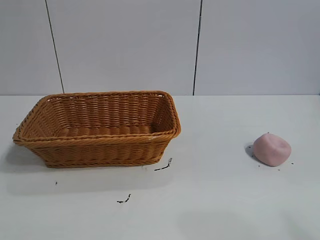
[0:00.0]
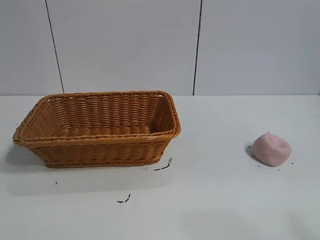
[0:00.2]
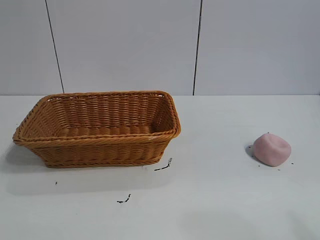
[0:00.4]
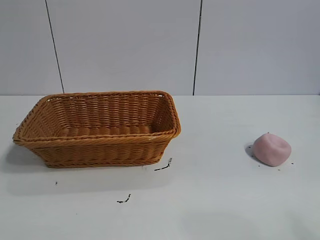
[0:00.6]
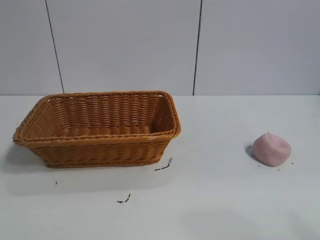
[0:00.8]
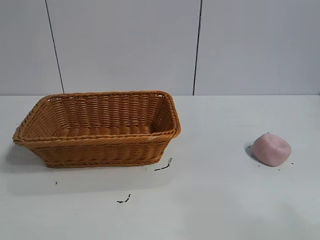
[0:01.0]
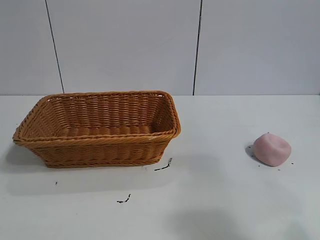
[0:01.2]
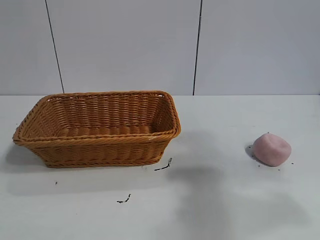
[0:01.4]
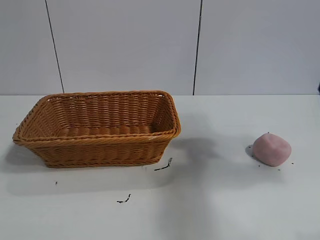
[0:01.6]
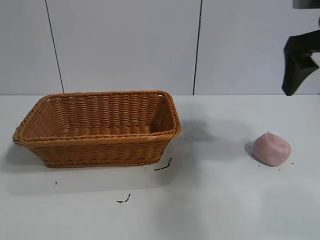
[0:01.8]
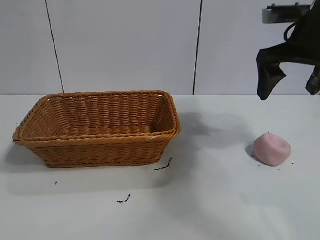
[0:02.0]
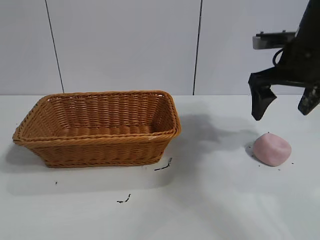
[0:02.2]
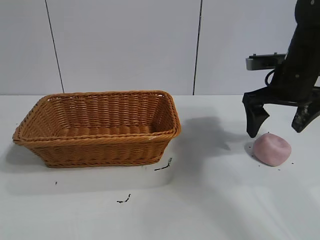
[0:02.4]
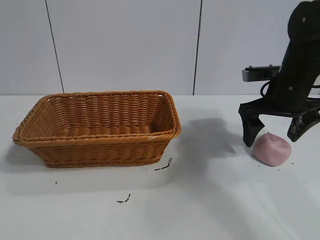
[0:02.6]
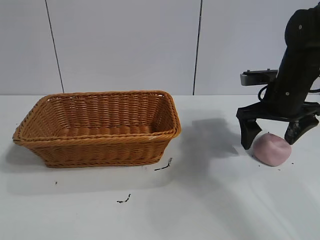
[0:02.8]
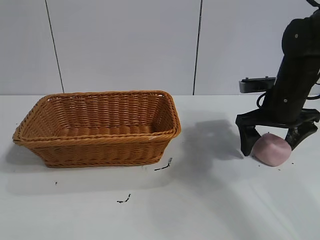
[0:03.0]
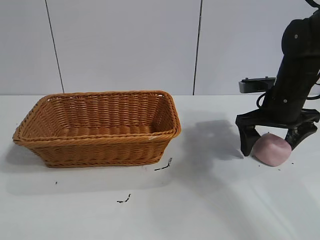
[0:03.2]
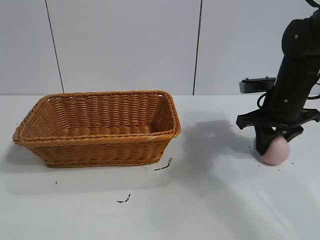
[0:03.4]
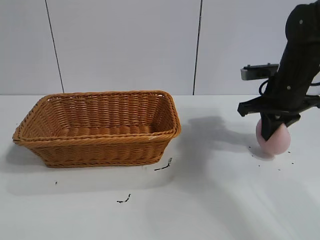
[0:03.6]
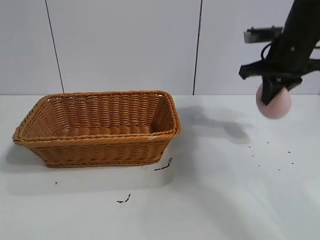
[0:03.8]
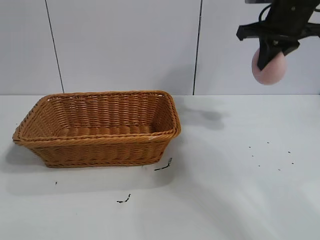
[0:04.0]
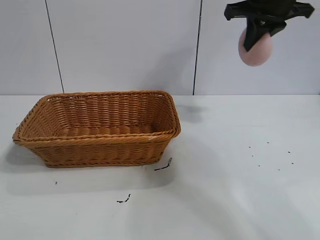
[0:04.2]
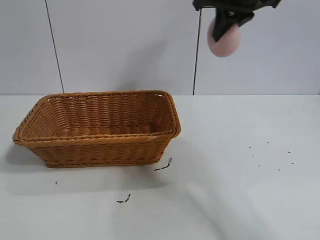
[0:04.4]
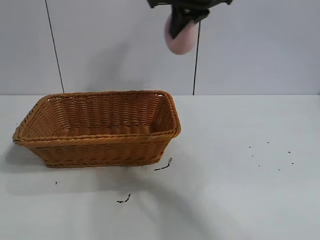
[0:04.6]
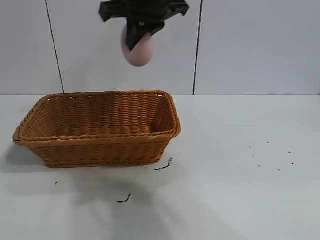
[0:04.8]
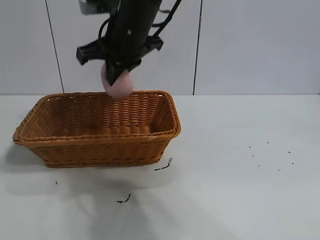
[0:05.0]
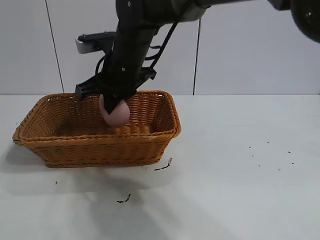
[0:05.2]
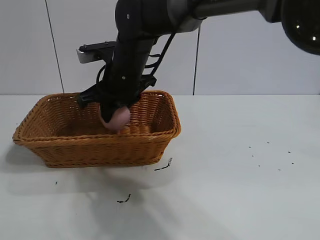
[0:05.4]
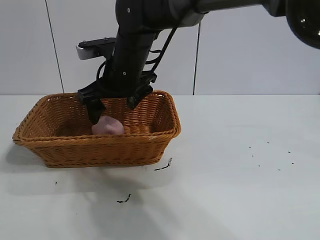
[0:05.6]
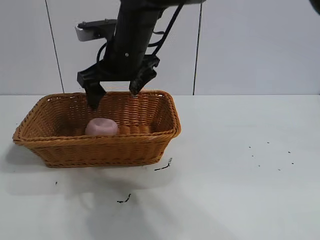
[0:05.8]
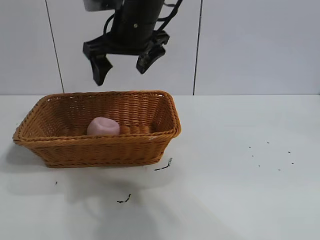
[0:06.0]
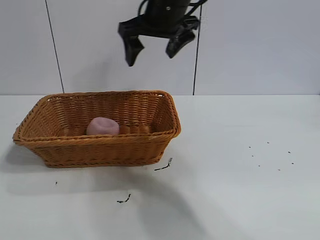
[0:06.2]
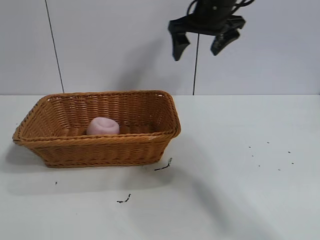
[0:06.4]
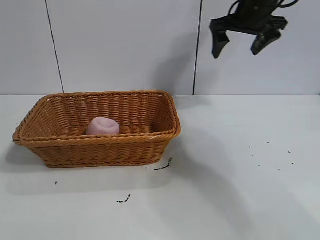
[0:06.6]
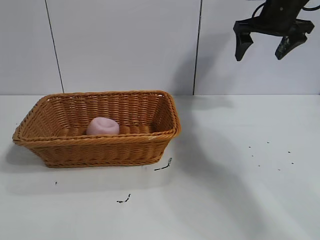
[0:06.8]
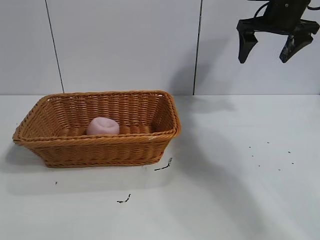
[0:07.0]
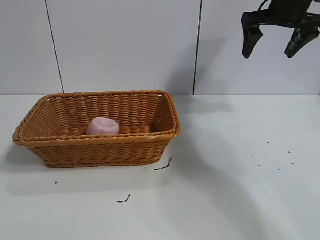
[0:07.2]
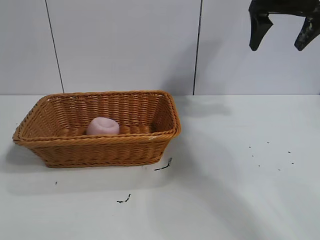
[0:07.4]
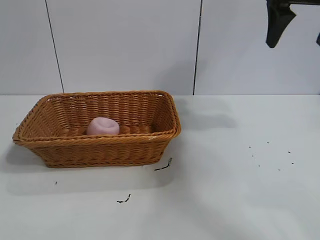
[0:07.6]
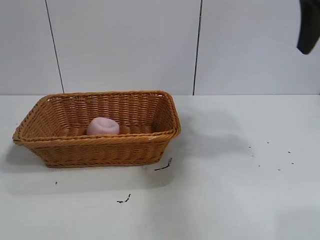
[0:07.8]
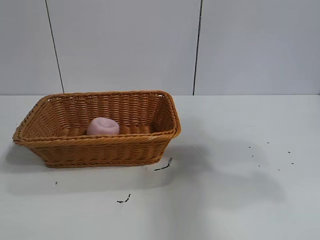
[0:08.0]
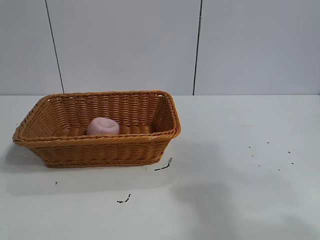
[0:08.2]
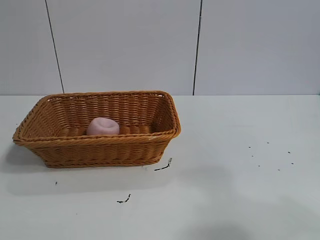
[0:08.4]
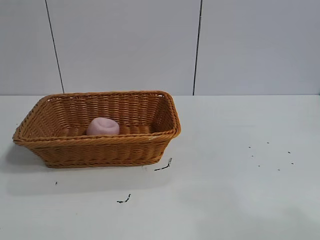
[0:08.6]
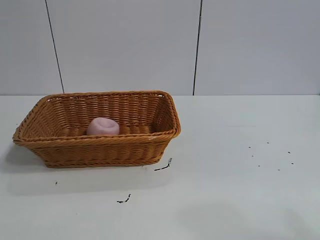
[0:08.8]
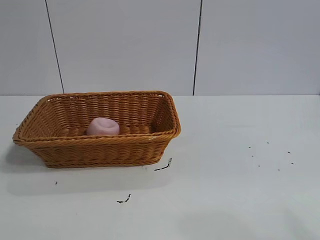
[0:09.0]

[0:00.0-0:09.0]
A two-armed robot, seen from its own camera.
Task of the whole recording: pick up the peach and put it into the basket.
Step, 0:00.0 to 0:03.4: Grasp the peach with right gripper.
Step, 0:03.6 to 0:05.6: Place the peach in the basket with right gripper.

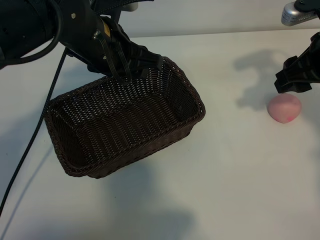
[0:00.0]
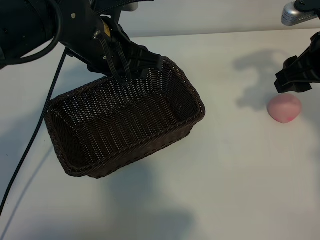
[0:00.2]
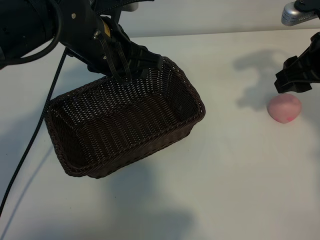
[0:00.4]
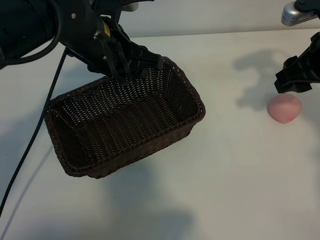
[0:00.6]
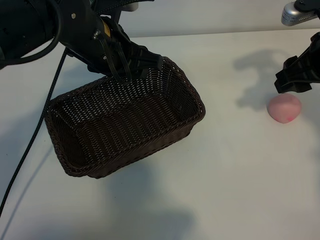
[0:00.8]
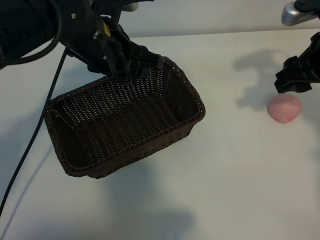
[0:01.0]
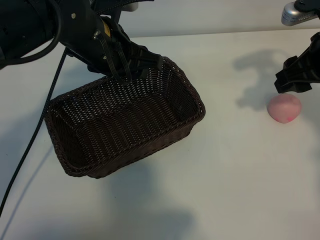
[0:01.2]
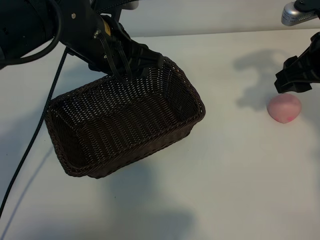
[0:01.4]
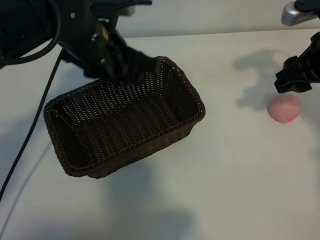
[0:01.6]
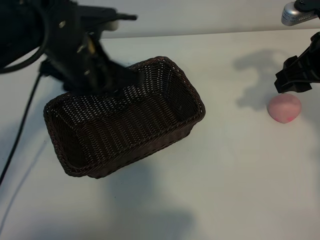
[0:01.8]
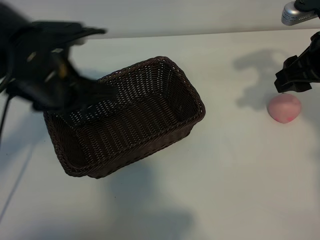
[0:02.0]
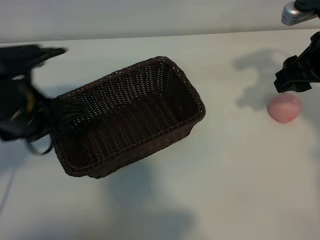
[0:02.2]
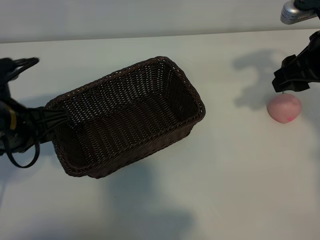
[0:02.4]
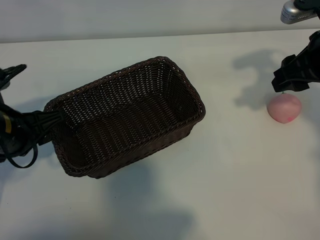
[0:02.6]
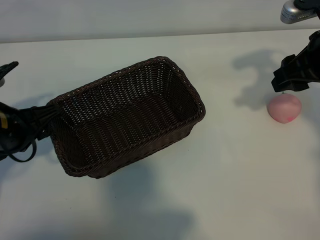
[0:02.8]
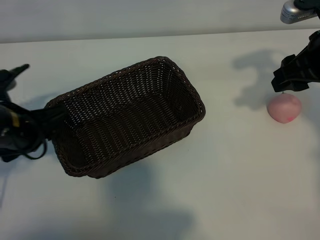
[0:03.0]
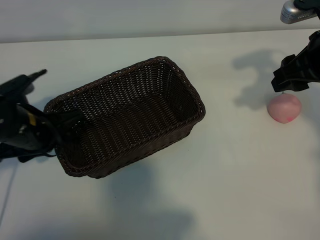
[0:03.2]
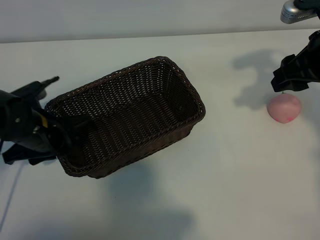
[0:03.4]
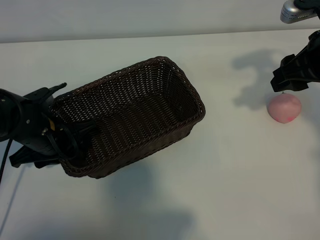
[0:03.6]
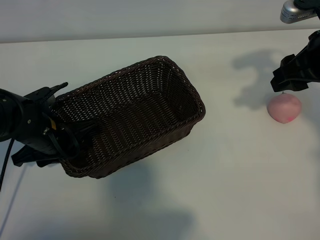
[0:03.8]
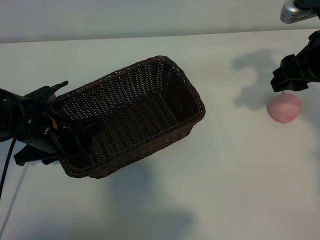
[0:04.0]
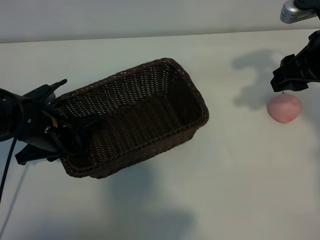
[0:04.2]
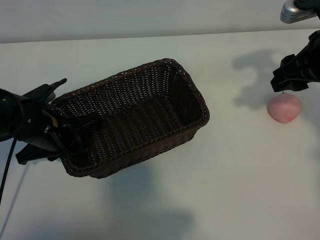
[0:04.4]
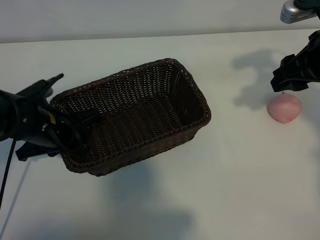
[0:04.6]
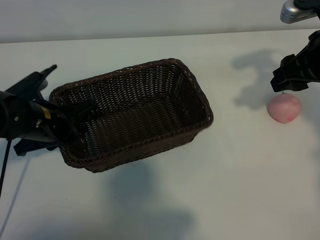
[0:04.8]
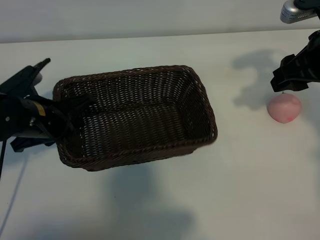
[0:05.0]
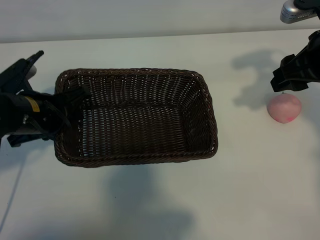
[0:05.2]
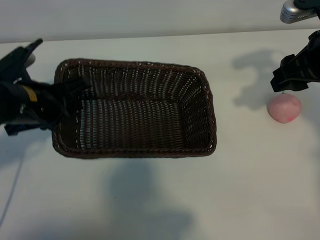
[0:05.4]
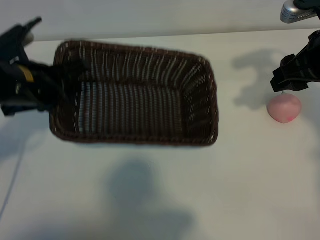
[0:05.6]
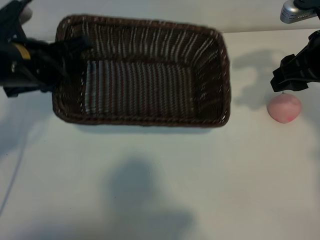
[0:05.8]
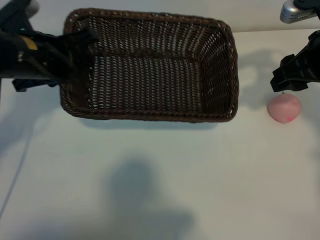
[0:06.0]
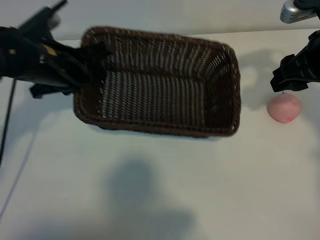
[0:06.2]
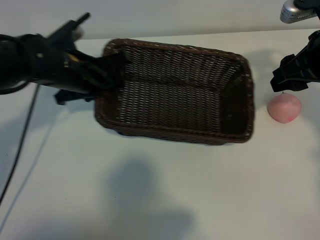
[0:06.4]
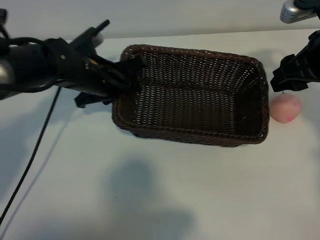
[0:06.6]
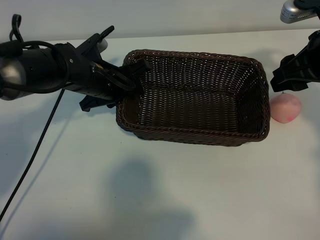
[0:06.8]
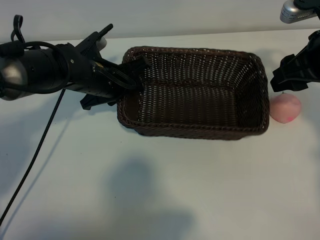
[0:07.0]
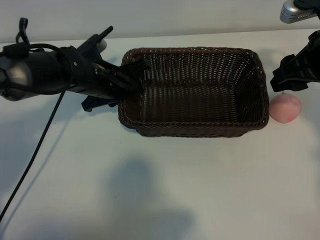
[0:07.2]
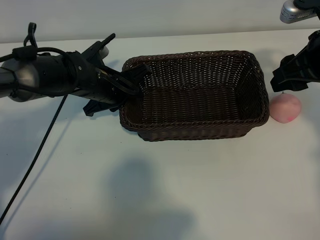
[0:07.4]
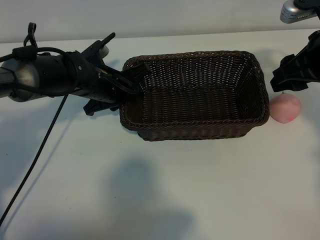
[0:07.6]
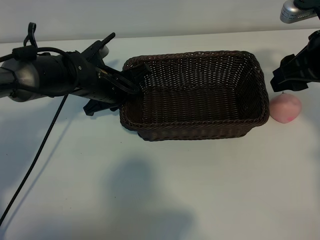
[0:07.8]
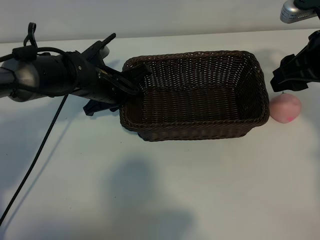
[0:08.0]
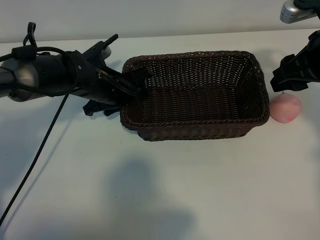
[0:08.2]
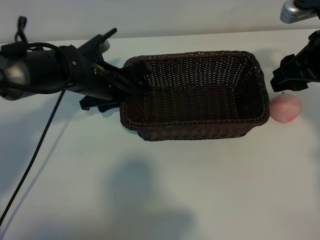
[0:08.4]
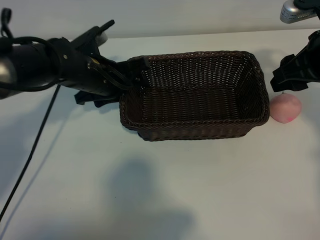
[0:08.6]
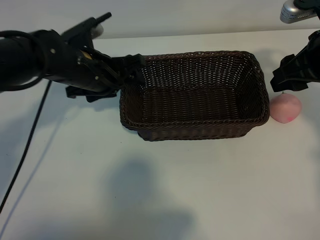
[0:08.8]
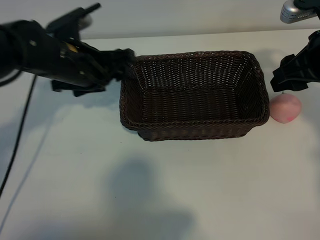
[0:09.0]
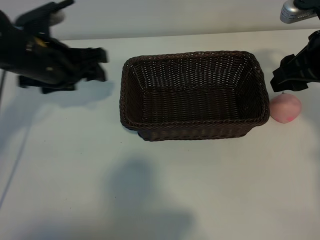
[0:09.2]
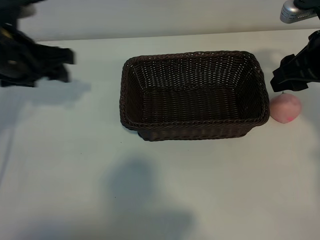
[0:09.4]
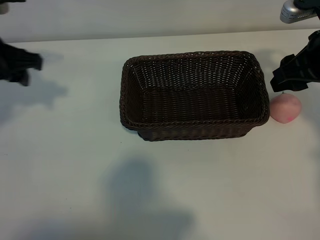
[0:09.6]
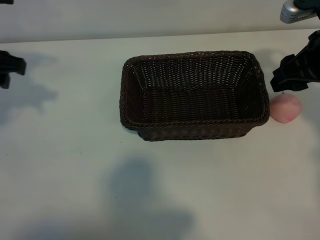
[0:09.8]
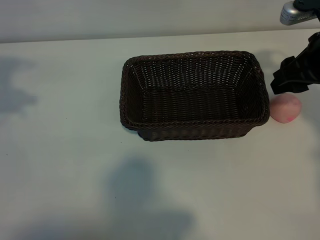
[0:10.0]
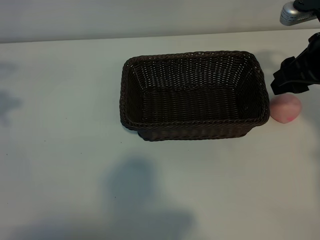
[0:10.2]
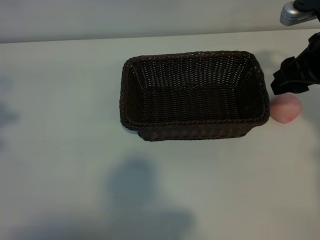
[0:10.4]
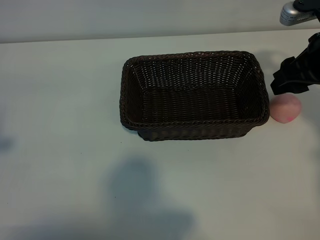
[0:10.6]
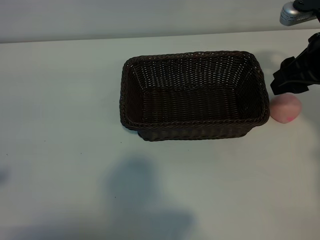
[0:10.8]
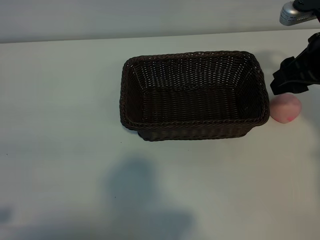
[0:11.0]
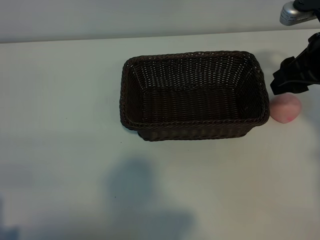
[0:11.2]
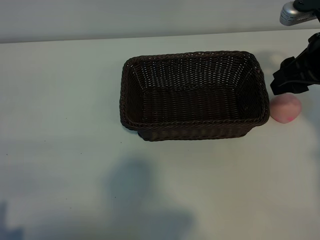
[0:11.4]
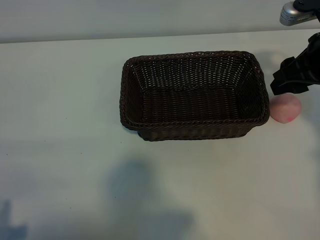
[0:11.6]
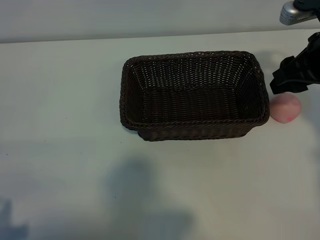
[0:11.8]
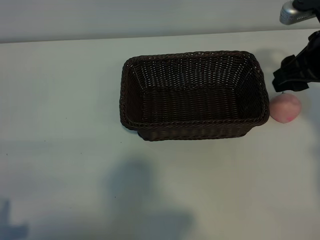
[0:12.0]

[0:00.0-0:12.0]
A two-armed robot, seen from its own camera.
Task of the whole recording: pick up the peach and put it into the basket.
Step, 0:01.4 to 0:04.2: Grasp the basket with left gripper.
Step, 0:04.6 to 0:08.6: Place the basket in the center of view with left gripper.
